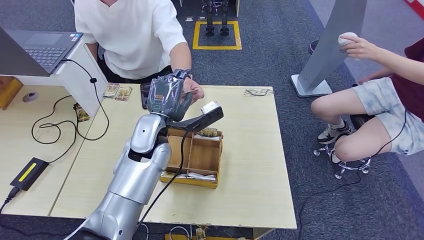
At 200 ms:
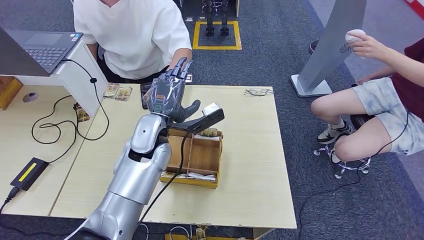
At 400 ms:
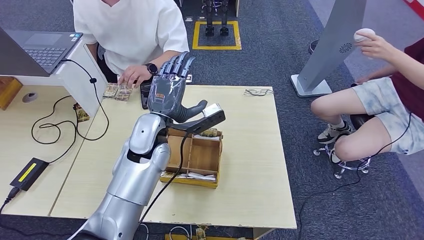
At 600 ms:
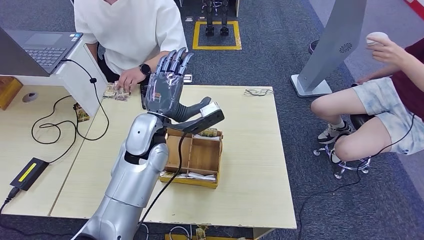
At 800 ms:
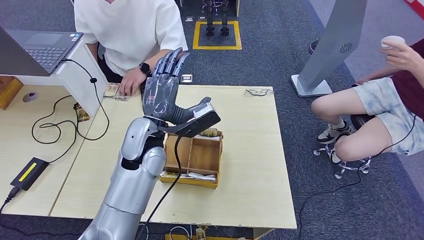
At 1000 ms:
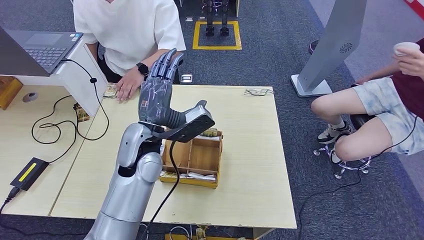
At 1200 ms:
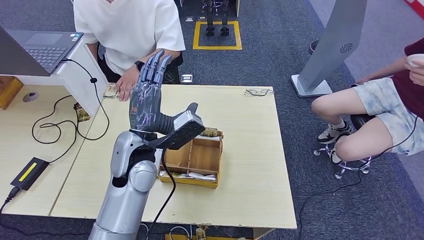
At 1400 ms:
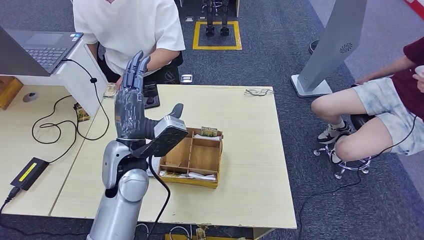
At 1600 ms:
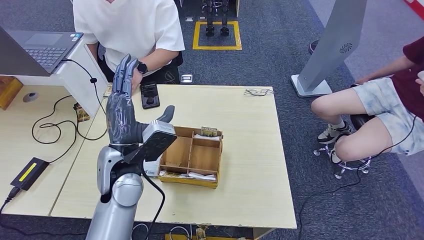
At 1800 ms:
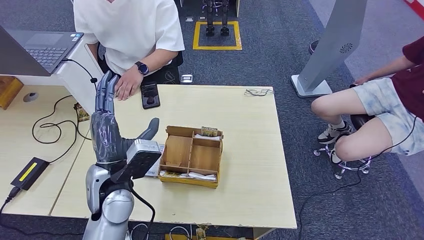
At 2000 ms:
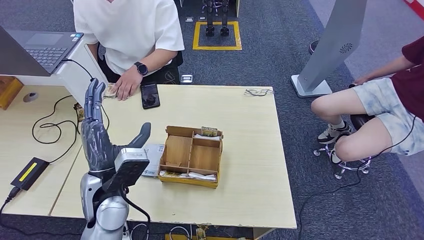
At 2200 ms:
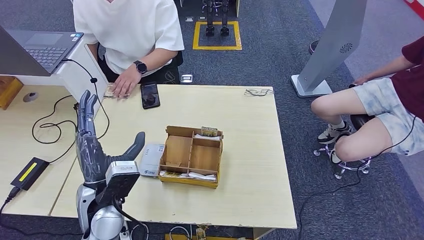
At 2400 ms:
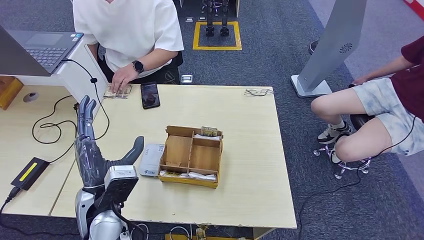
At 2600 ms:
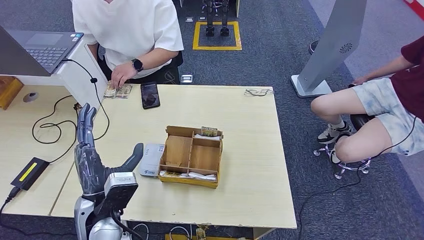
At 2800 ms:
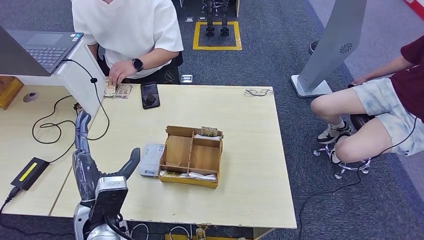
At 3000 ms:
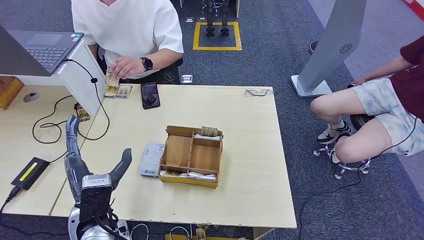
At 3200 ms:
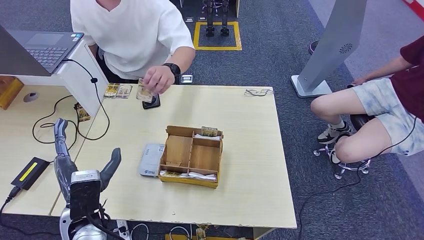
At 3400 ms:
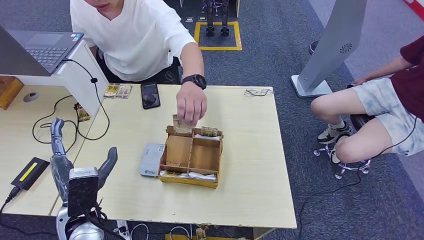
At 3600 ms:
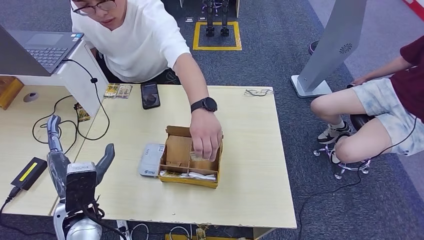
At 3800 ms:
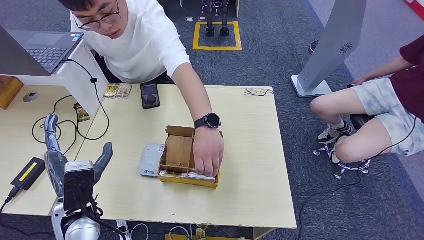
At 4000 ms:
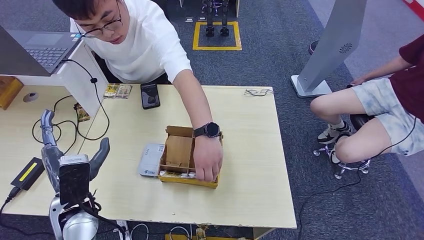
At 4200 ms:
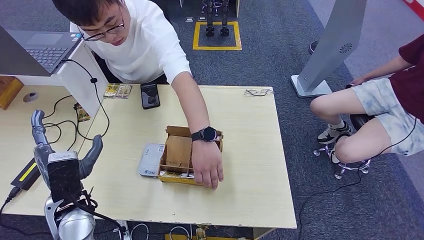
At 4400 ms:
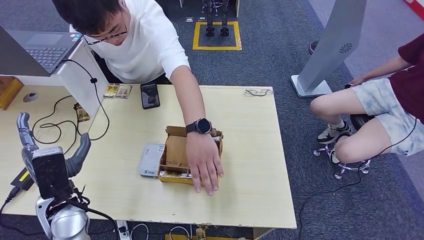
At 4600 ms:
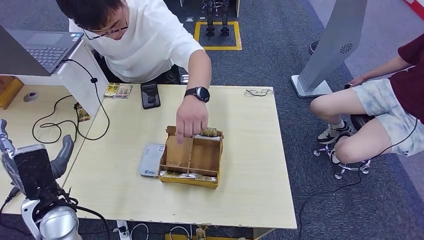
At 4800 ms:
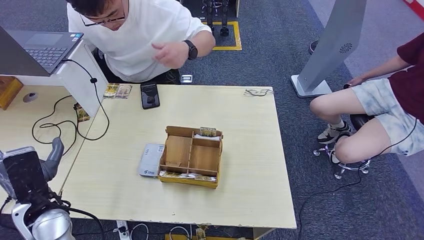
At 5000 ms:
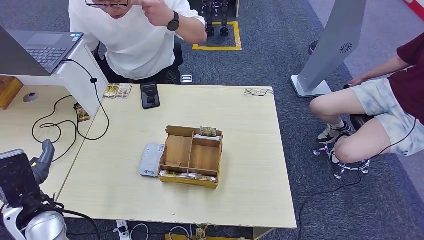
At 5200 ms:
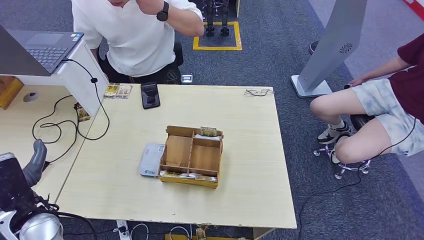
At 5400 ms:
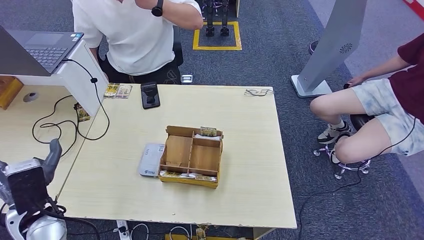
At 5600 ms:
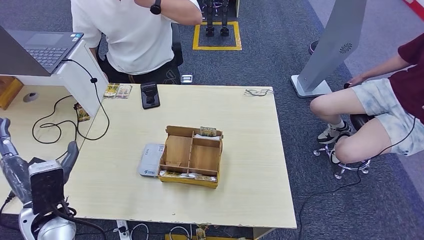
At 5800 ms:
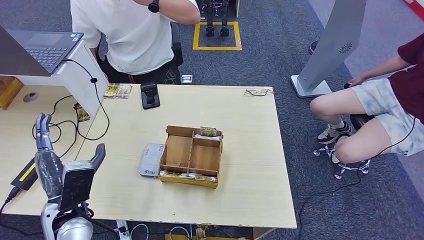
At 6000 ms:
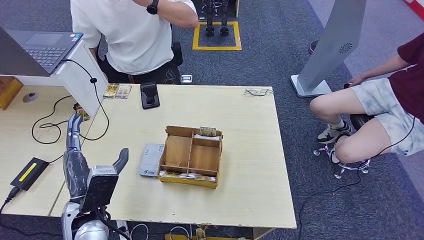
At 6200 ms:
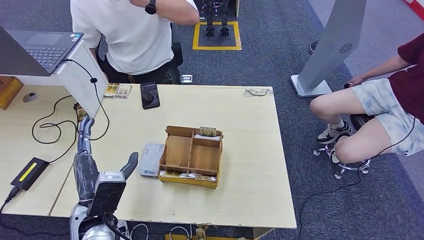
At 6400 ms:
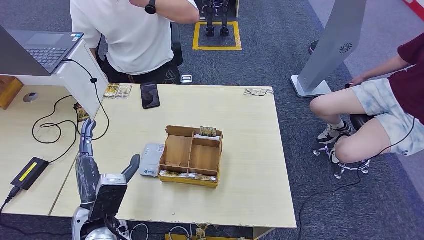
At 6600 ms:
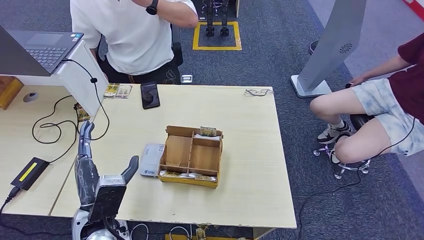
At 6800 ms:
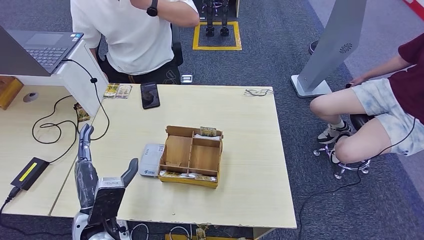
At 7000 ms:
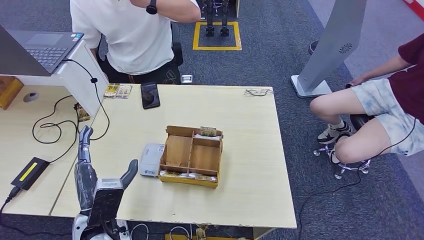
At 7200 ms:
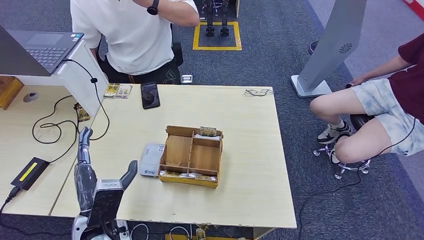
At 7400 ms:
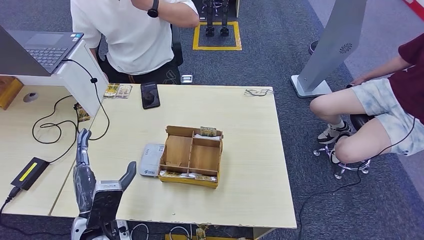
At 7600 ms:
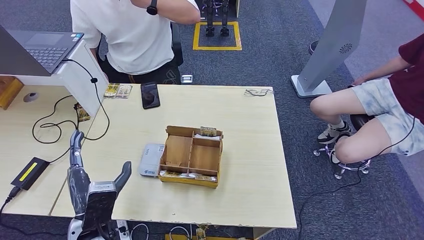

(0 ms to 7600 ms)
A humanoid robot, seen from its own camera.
Step, 1000 ms - 7600 ms: Hand the room key to the person.
0 ms - 1600 ms: The left hand moves backward and to the left, about 10 cm.
1600 ms - 3000 ms: The left hand travels backward, downward and to the left by some 10 cm.
6000 ms - 7600 ms: There are only small adjustments of the hands.
